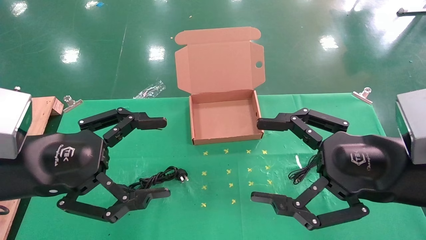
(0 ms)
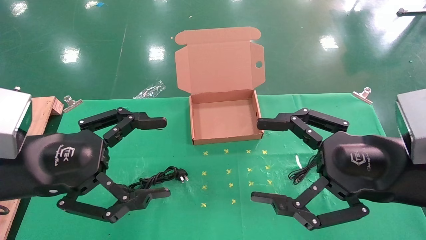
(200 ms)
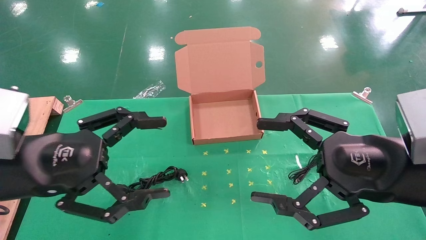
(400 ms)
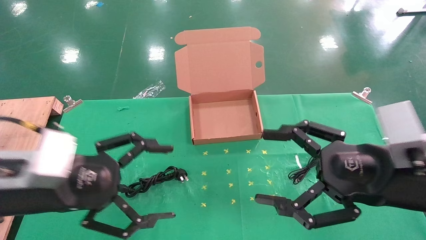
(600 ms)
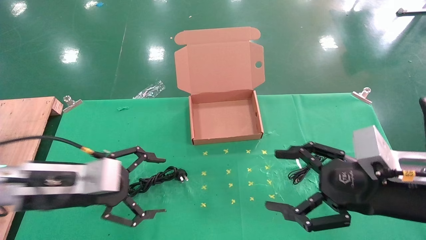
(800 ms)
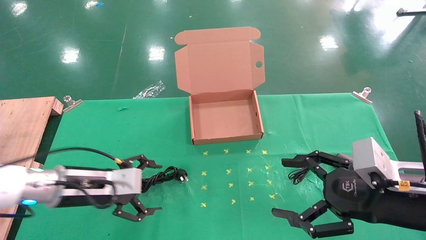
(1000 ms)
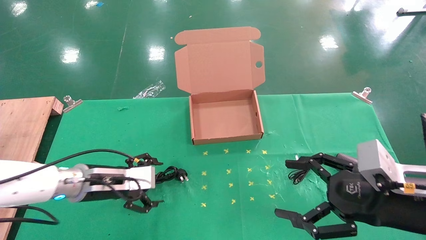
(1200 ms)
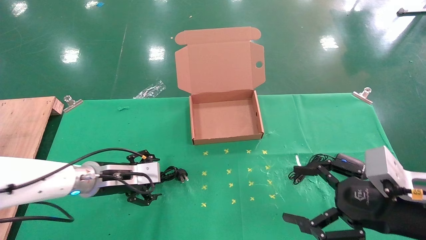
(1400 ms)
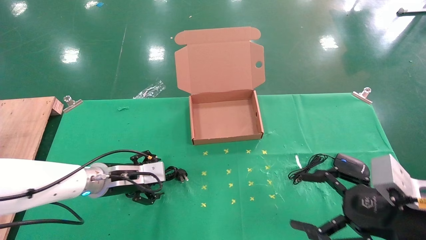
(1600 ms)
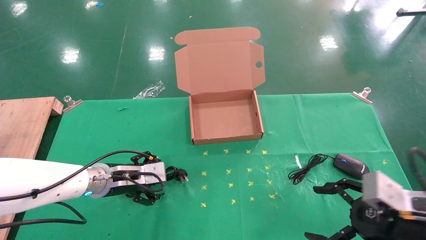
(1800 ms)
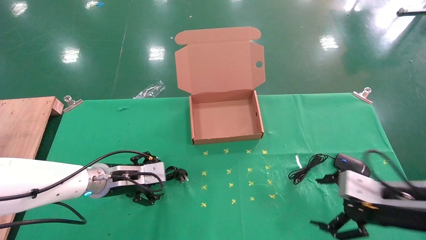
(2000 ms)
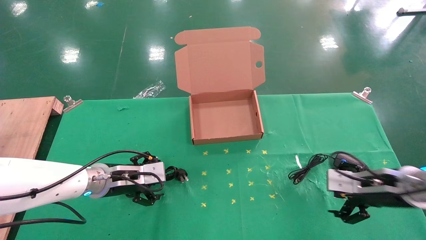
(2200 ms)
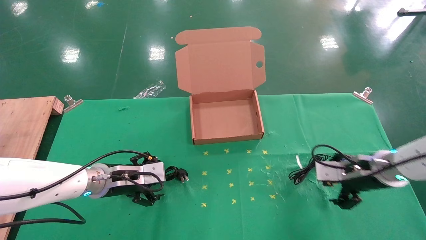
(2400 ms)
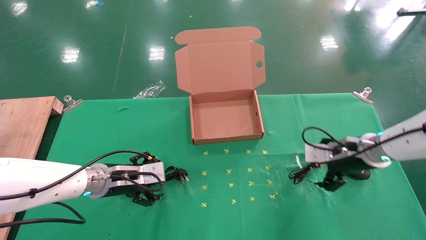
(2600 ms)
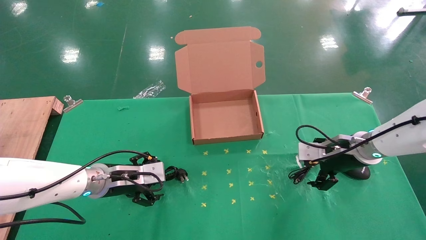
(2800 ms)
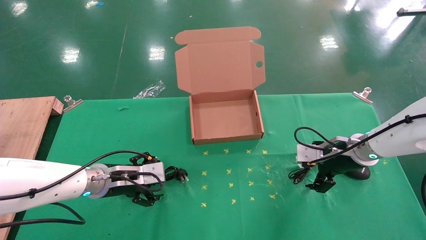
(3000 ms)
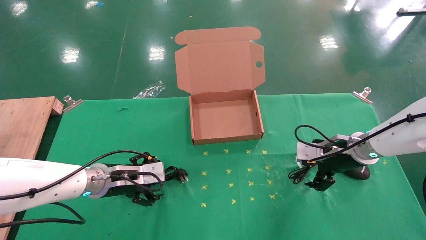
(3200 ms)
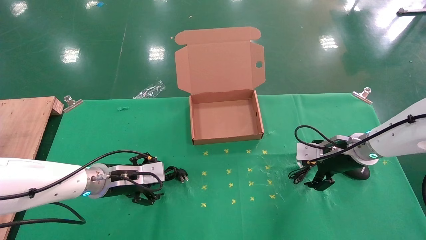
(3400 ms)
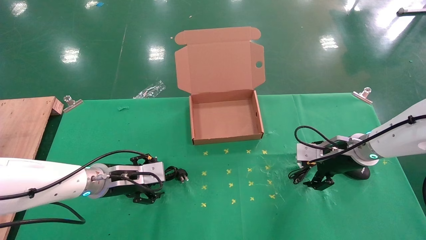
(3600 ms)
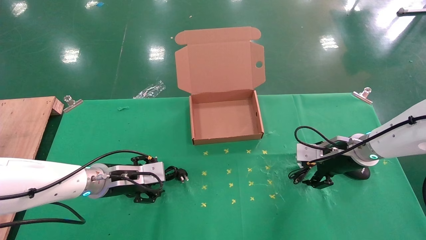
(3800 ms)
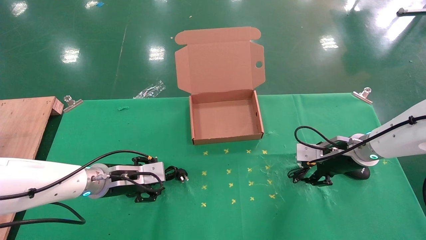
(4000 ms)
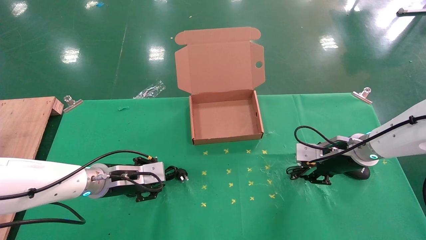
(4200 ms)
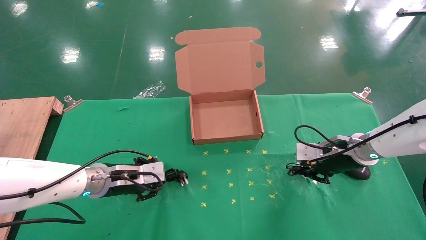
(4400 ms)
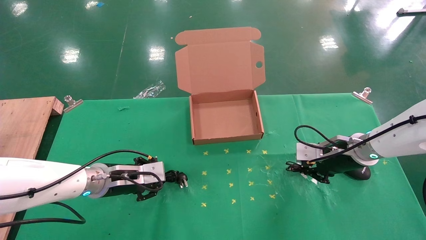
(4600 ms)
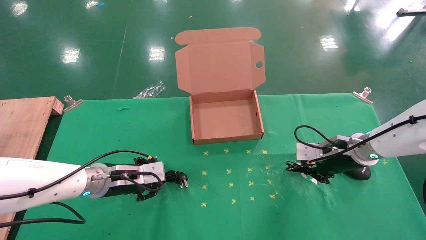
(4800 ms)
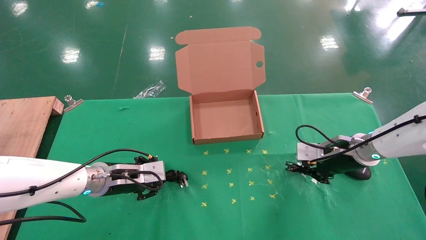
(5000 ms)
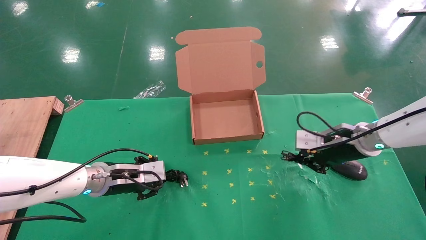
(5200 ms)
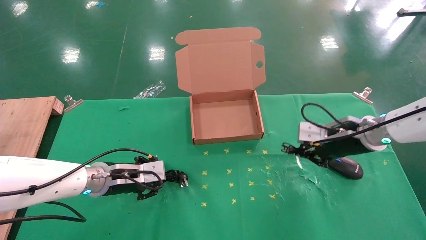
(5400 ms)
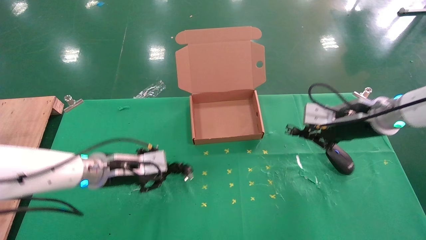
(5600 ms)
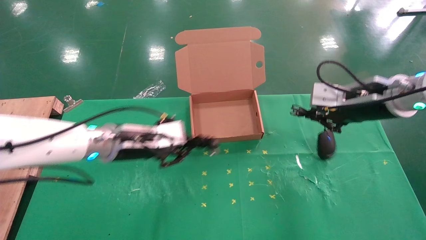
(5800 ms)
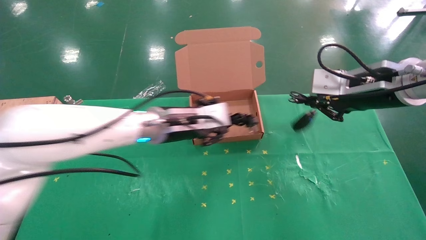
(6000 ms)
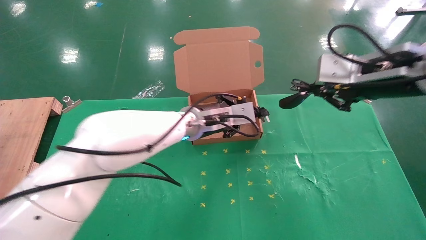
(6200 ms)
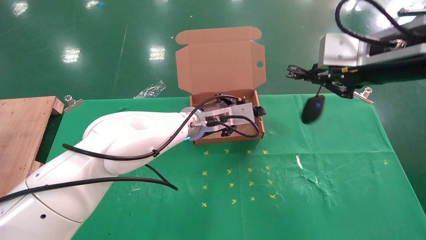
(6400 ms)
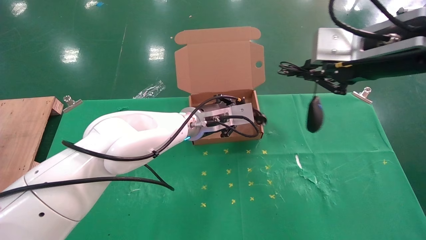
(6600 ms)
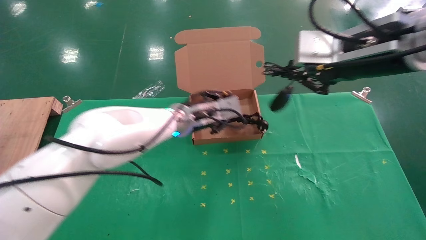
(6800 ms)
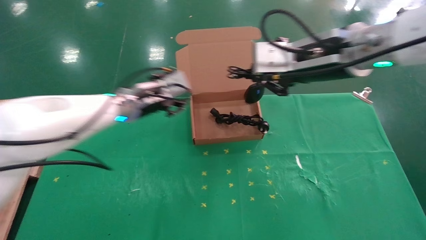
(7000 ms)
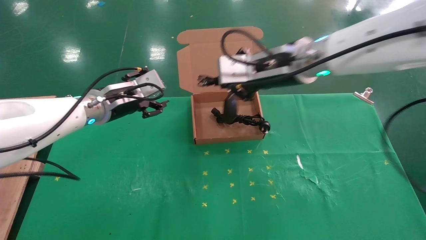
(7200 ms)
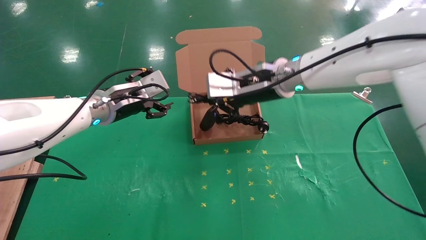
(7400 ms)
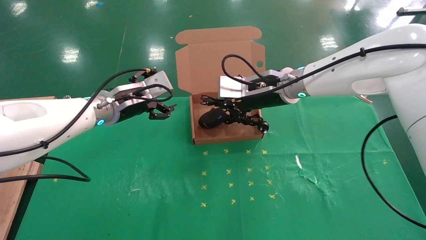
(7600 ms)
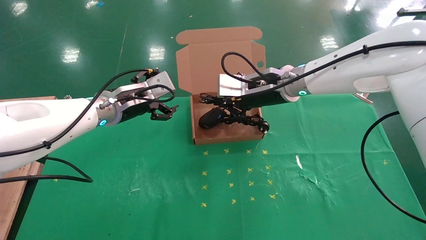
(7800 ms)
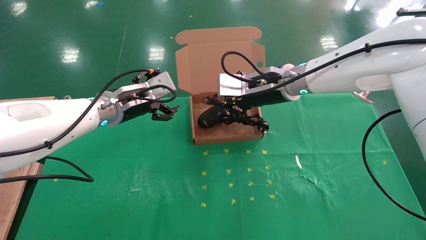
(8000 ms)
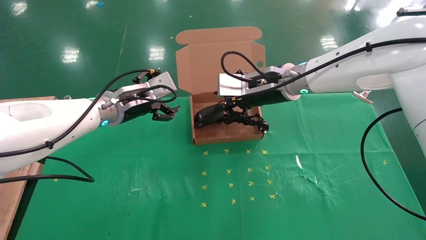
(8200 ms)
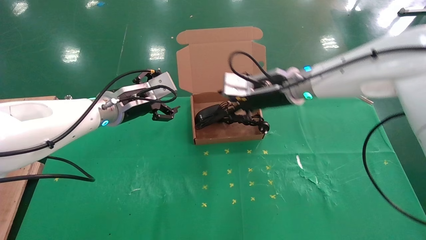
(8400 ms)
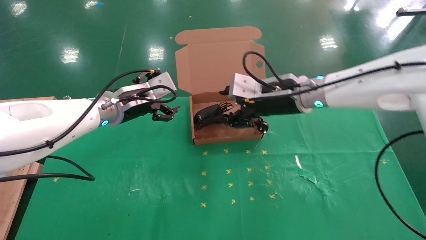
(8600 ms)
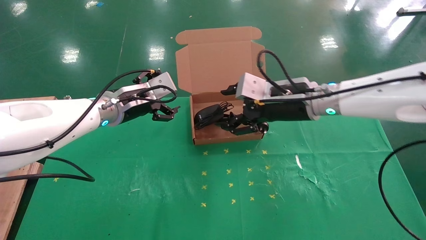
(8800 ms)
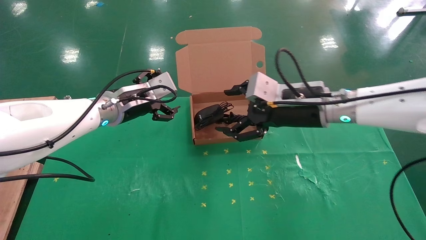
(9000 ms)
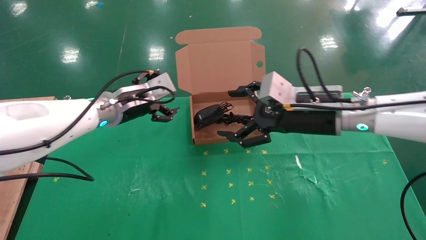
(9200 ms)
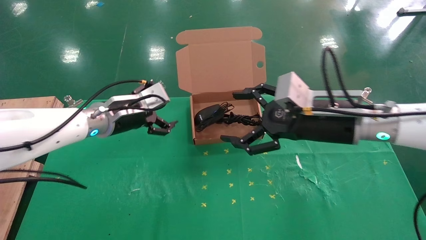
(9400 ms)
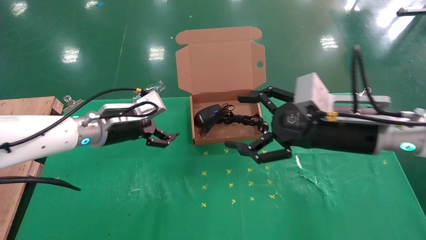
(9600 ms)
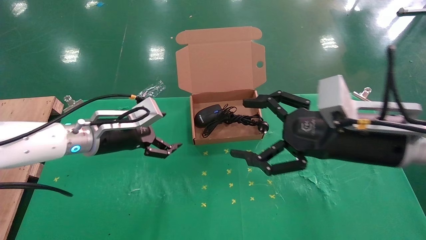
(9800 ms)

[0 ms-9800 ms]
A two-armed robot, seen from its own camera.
Task of the whole recording: grasp data cable left put into box grasp mouse right put into box.
Step, 1200 ms to 4600 ms: Simultaneously pick up the mouse and power cord from the accessory packaging area.
Step, 4800 ms to 8200 ms: Place the mouse and power cord into the box.
0 ms to 1400 ms: The left gripper is displaced forward and downward by roughly 20 cm. Meanwhile the right gripper heads downward and to the right, covering some 10 cm.
1400 ms to 2800 ms: The right gripper heads forward, covering some 20 cm.
2800 ms to 4200 ms: The right gripper closes its fingers.
4200 ms to 5600 ms: The left gripper shifts roughly 5 cm upward, and closes up. Meanwhile the right gripper travels upward by about 10 cm, and closes.
5600 ms to 7000 ms: The right gripper is displaced to the left and upward by about 15 cm, while the left gripper goes approximately 10 cm upward and forward, and moves about 15 cm to the right and comes back.
7000 ms to 8400 ms: The right gripper goes approximately 10 cm downward and forward. Meanwhile the left gripper opens up.
8400 ms to 9800 ms: The left gripper ends up approximately 5 cm from where it was; the right gripper is displaced backward and to the right by about 20 cm, and opens its fingers.

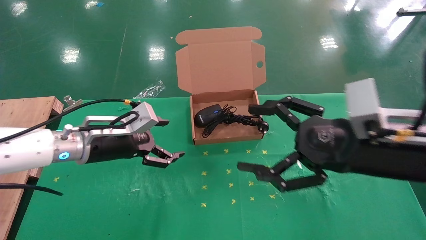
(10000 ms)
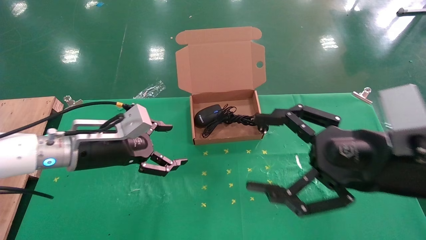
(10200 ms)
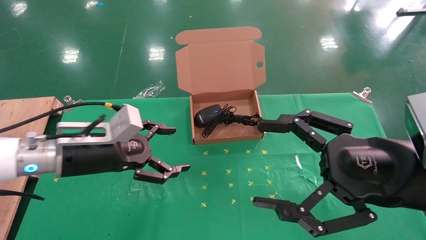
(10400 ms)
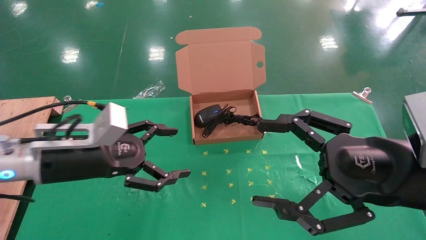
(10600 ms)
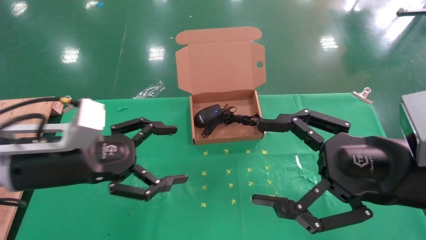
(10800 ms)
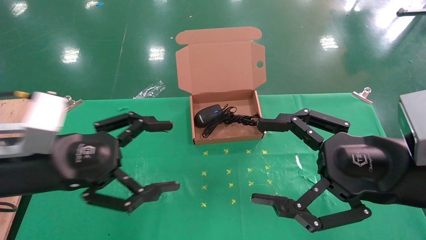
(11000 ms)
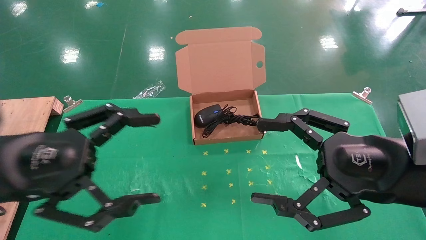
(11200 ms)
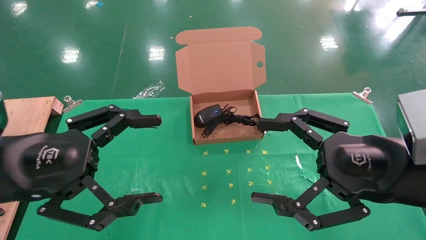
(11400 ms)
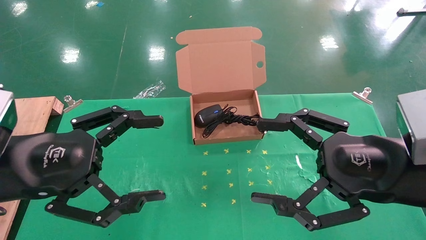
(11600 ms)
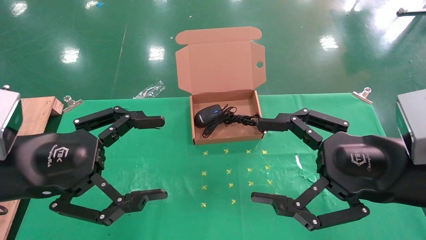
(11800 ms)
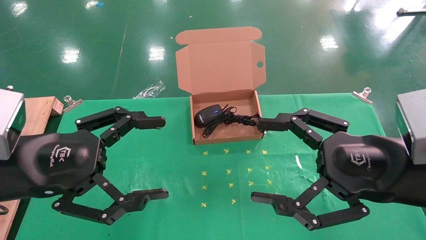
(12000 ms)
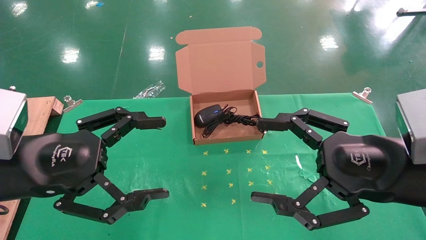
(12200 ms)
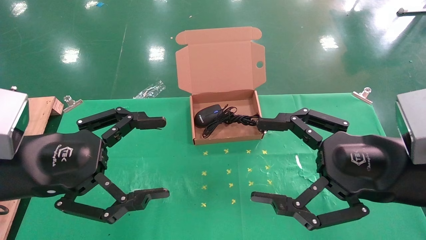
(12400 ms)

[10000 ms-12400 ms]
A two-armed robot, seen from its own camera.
Task of the whole recording: grasp data cable left put into box grasp mouse right put into box.
10000 ms to 11200 ms: The left gripper goes some 15 cm backward.
11200 ms to 12400 ms: Neither gripper changes place.
